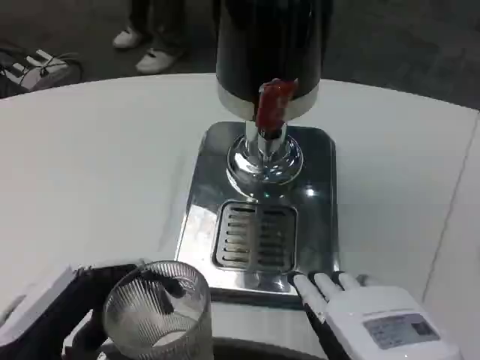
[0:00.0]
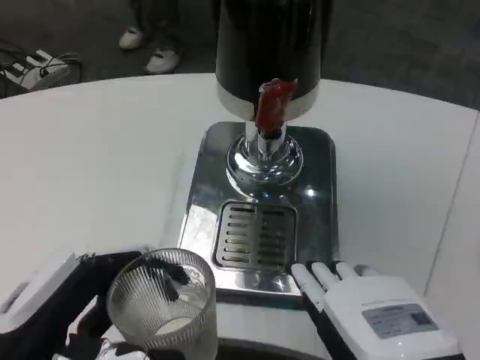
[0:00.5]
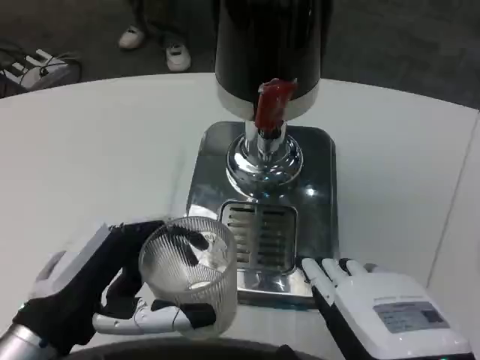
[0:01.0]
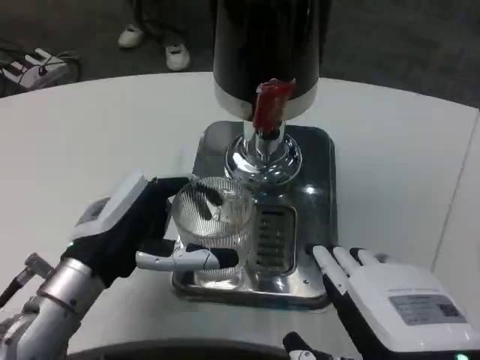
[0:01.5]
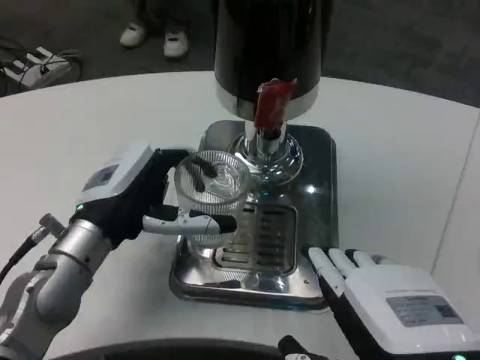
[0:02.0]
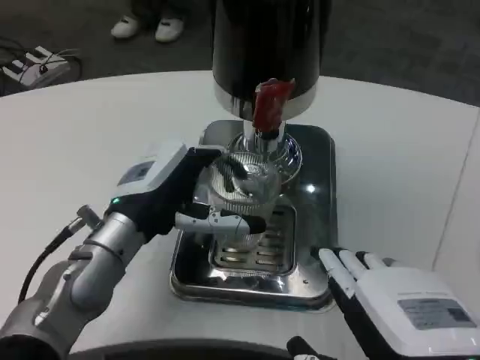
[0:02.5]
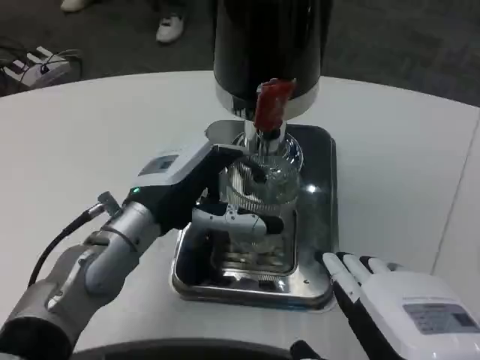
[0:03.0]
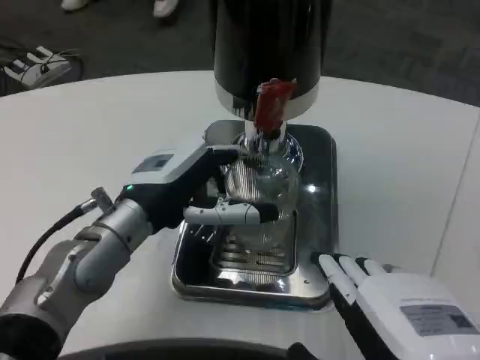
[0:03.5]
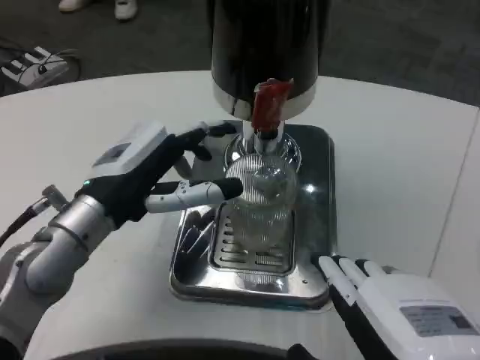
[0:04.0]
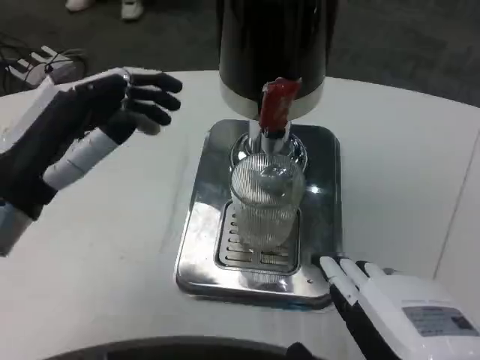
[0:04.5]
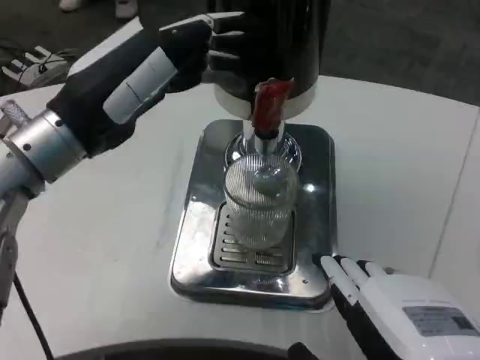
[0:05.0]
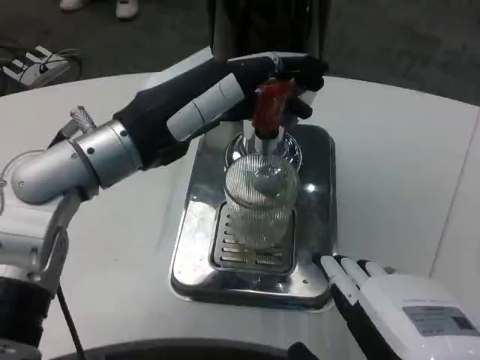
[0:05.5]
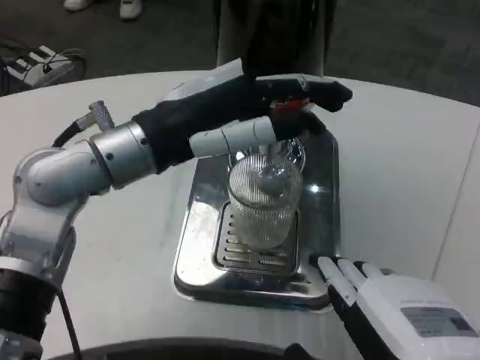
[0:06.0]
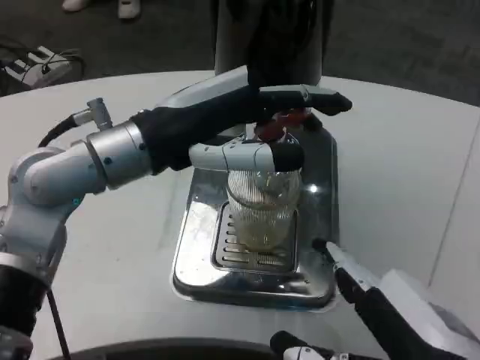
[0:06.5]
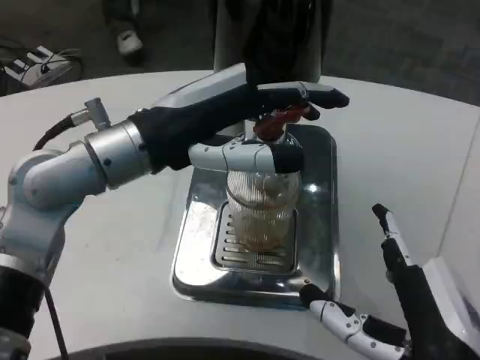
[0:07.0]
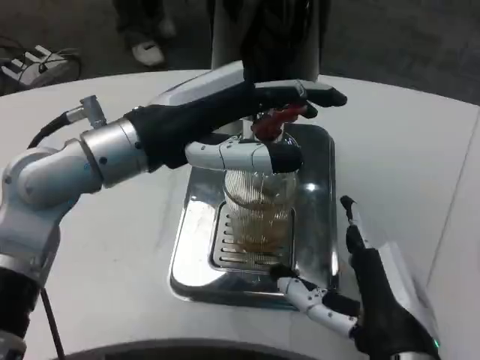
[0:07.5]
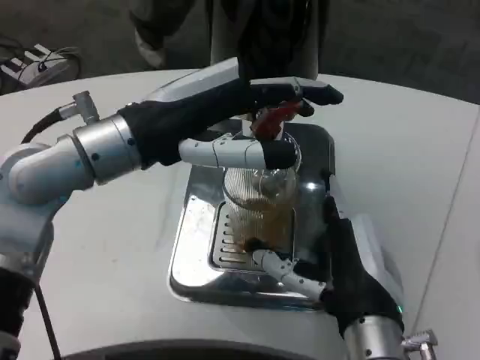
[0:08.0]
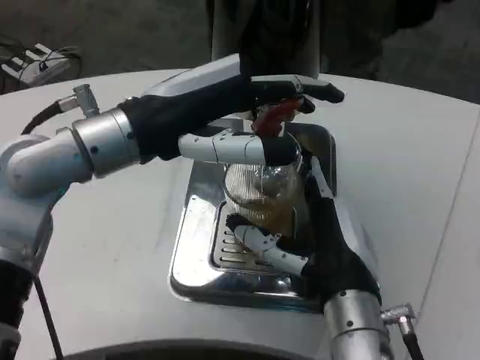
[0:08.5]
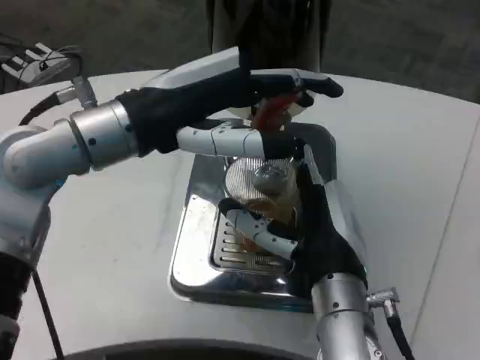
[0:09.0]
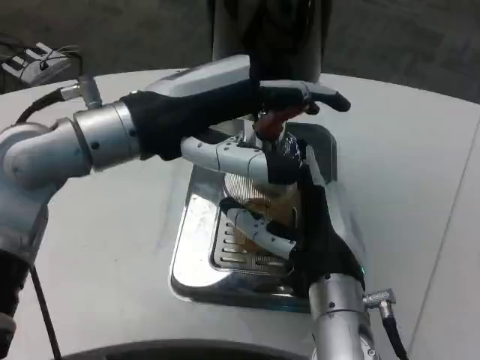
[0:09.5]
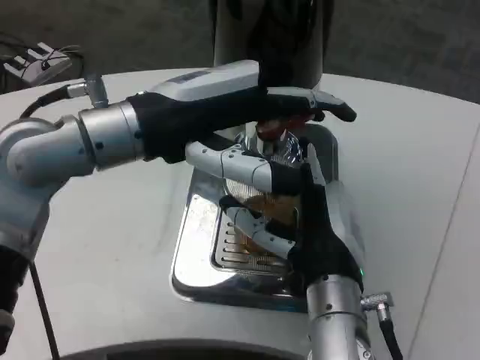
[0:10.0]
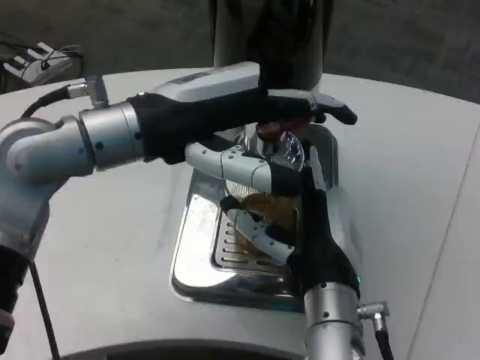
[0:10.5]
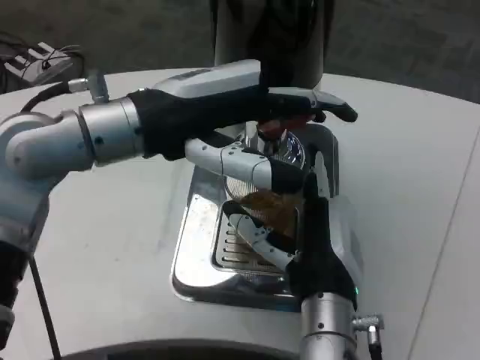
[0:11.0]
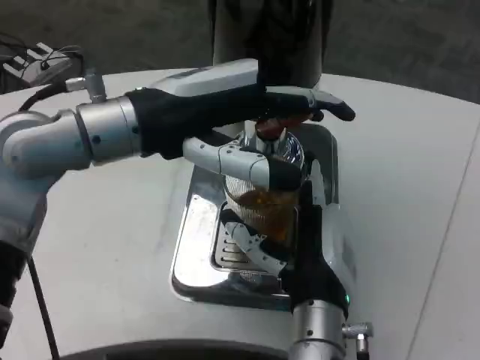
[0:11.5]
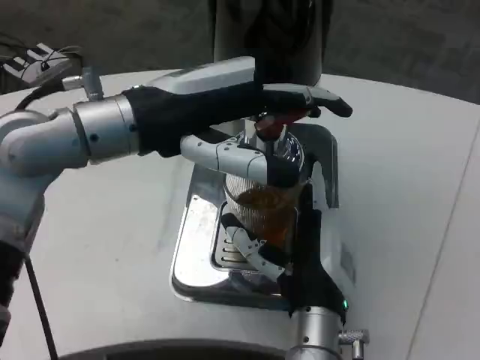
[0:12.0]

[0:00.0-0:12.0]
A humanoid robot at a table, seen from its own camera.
Task of the whole recording: Grasp the cup under the faucet to collect the drink, then remove the cup.
0:00.0 to 0:02.0: The left hand moves forward, about 15 cm.
0:04.0 to 0:06.0: The left hand shifts roughly 10 cm upward.
0:06.0 to 0:08.0: The right hand moves forward, downward and to the left, some 15 cm.
0:10.0 to 0:12.0: The right hand ends up some 5 cm from where it was.

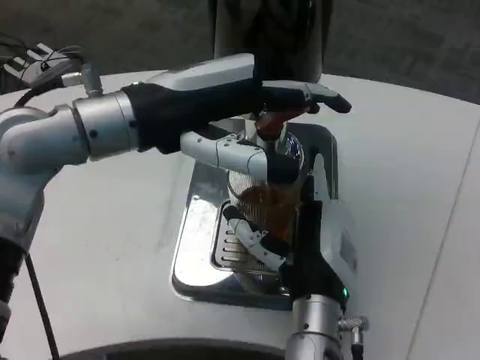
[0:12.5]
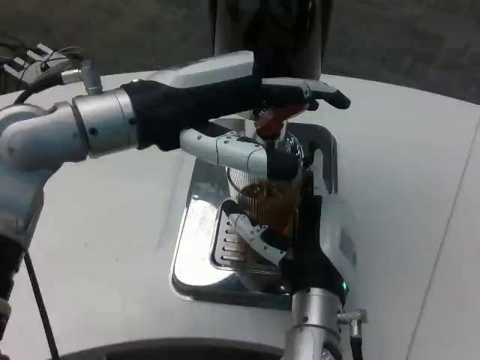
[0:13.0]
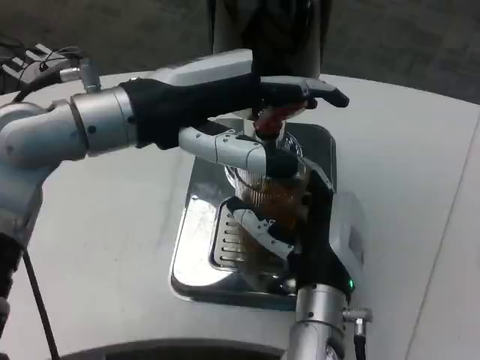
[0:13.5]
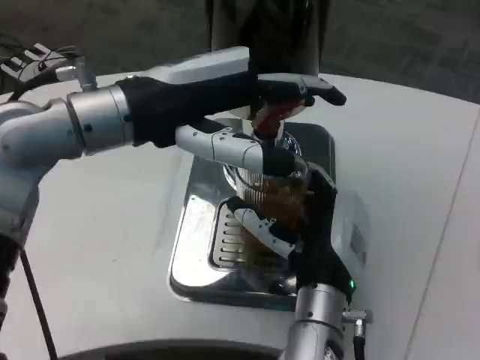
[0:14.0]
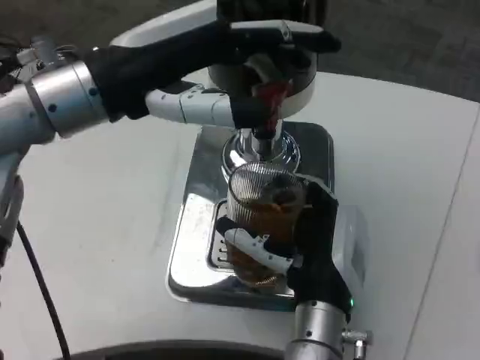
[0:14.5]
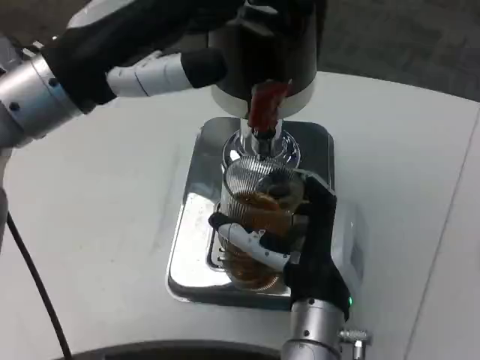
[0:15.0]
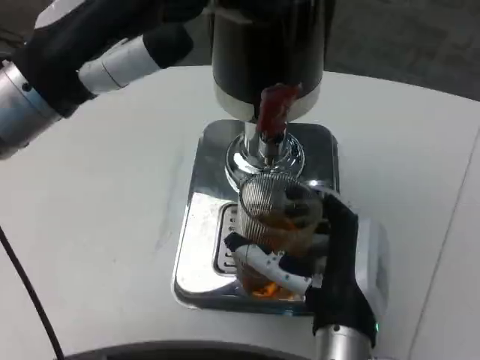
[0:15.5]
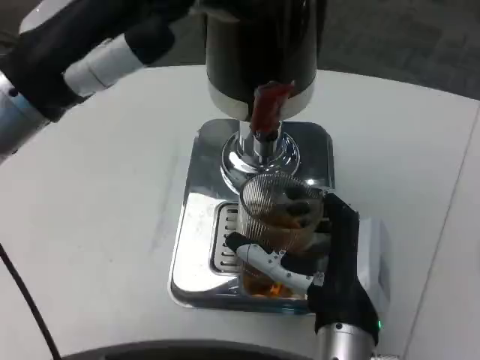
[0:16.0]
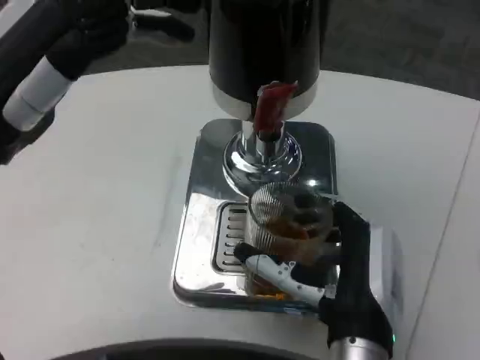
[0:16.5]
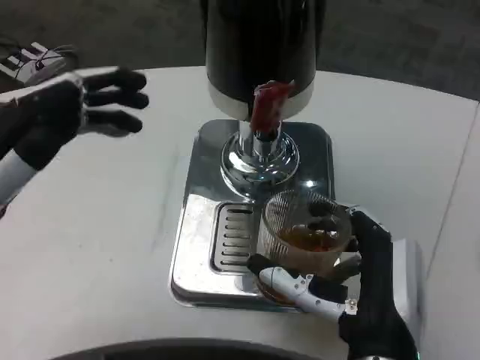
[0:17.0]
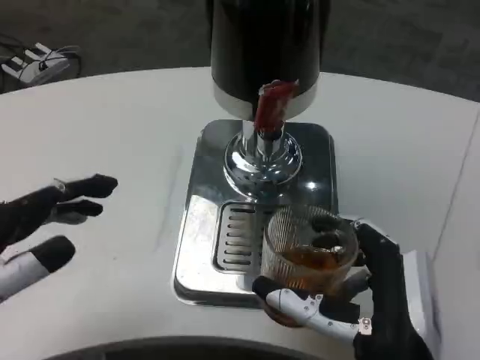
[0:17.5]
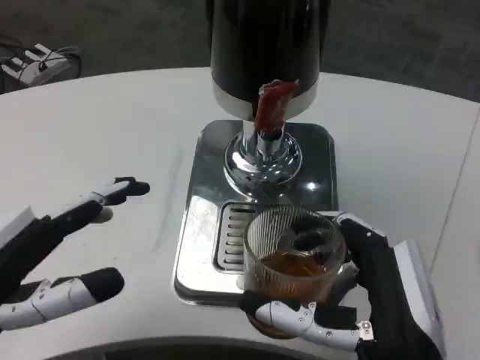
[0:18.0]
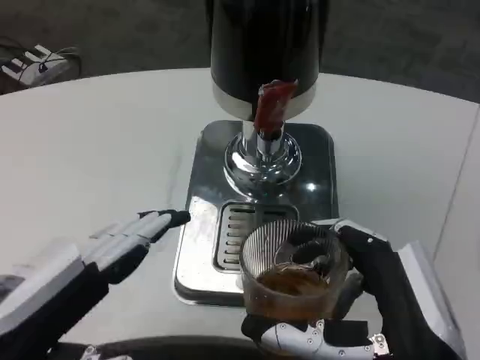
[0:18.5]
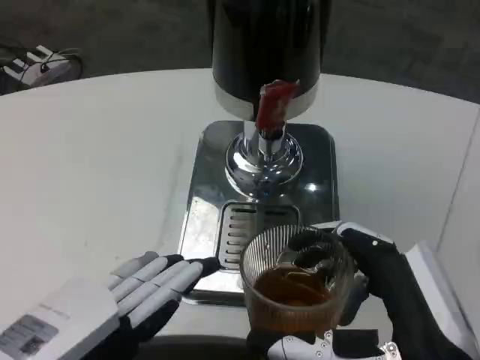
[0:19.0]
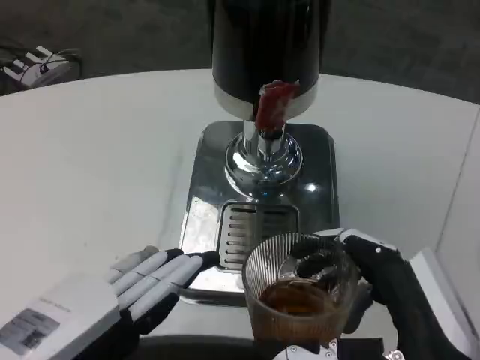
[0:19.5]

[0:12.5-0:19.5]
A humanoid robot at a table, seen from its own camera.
Task of the whole recording: Grasp the cup under the faucet to collect the drink, then remove the cup.
0:16.0 to 0:17.5: The left hand travels downward, backward and to the left by approximately 20 cm. Meanwhile the right hand shifts approximately 5 cm backward.
0:17.5 to 0:19.5: The left hand heads to the right and backward, covering approximately 10 cm. The right hand shifts by approximately 10 cm.

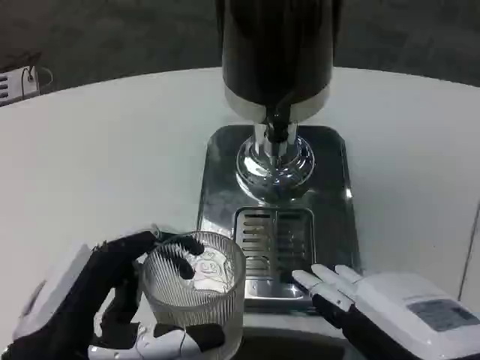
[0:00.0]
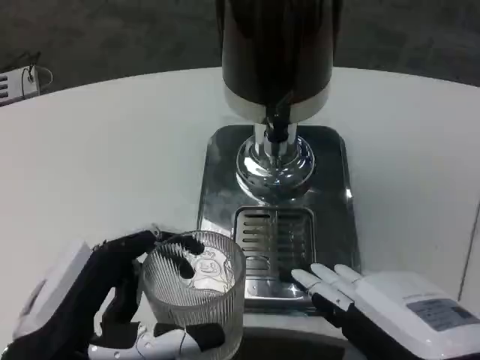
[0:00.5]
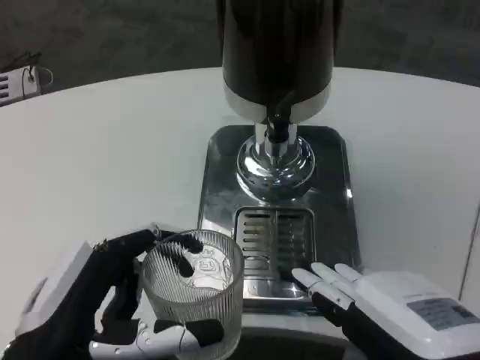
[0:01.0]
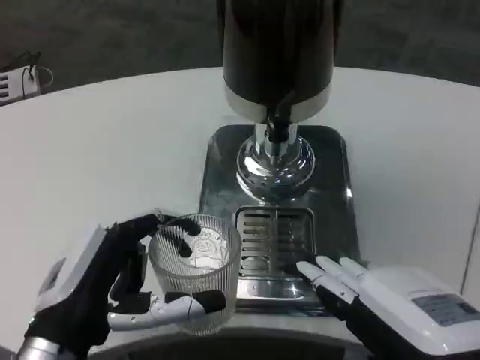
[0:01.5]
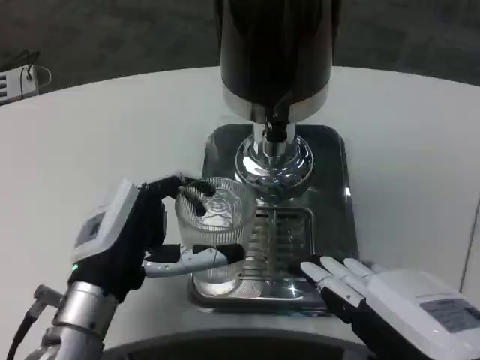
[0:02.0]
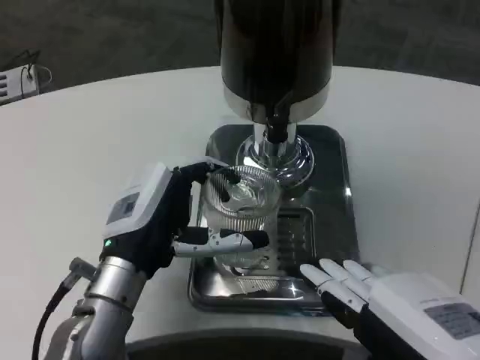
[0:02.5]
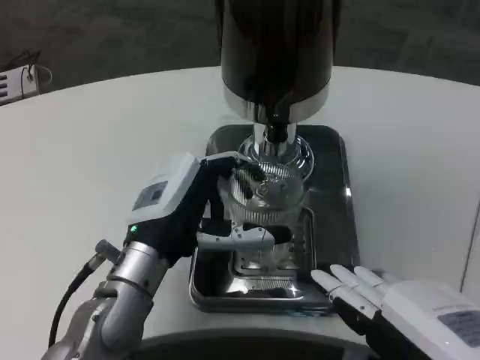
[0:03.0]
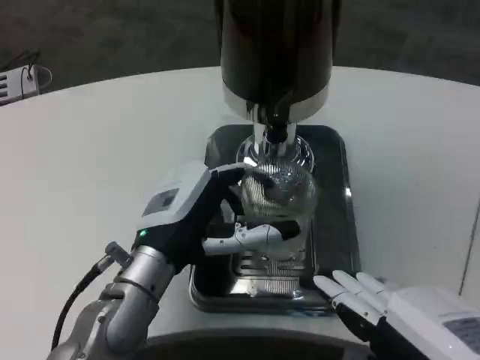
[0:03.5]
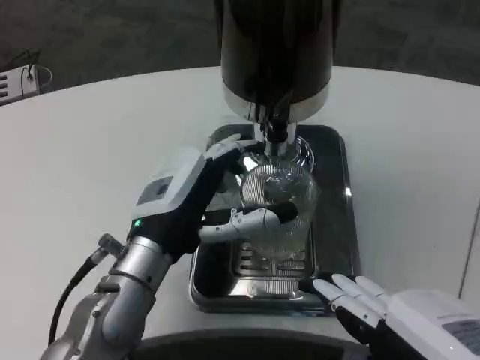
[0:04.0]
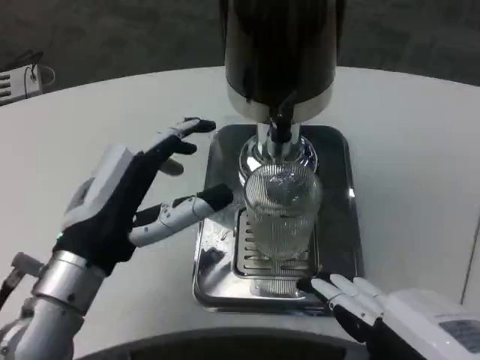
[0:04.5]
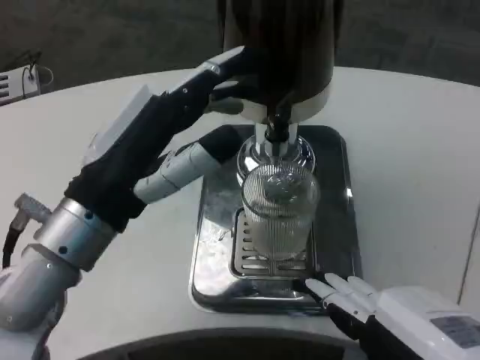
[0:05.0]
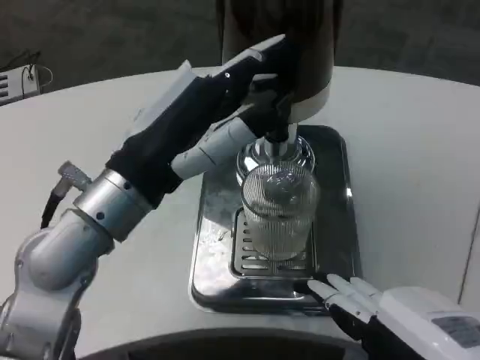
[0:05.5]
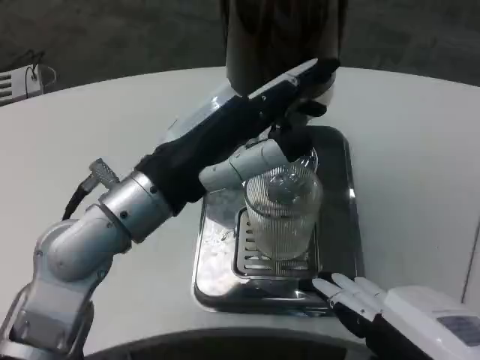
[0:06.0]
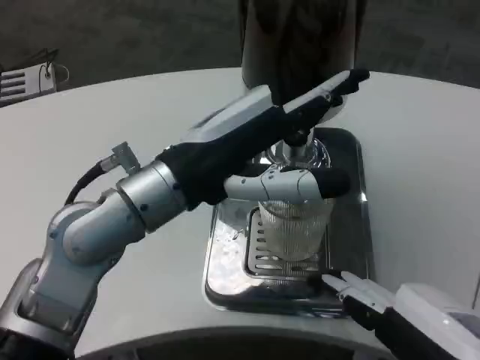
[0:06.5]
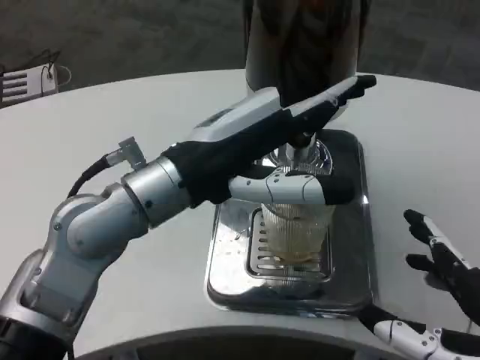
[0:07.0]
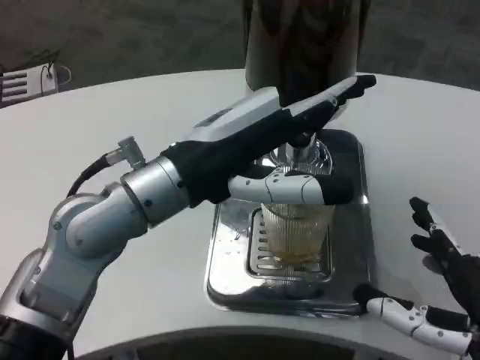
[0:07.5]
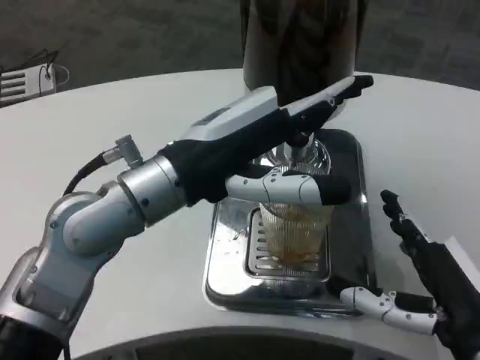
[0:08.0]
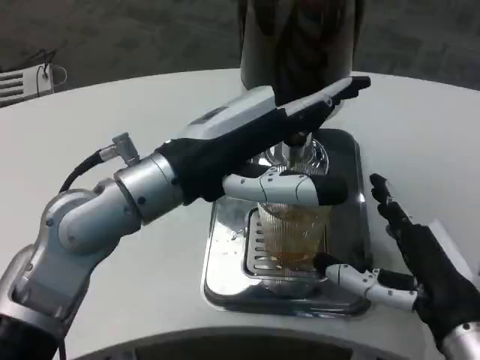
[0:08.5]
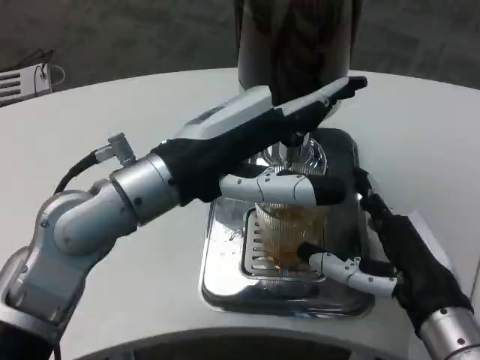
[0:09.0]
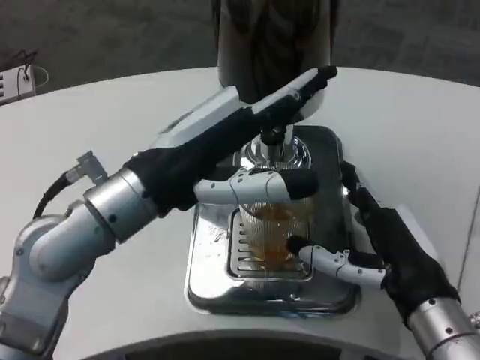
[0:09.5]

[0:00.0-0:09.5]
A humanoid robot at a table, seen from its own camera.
Task of the whole recording: Grasp the cup under the faucet to collect the drink, then remove the cup.
0:00.0 to 0:02.0: The left hand is displaced forward by roughly 10 cm.
0:02.0 to 0:04.0: The left hand moves about 5 cm.
0:04.0 to 0:05.5: The left hand moves upward, roughly 10 cm.
0:05.5 to 0:07.5: The right hand heads forward and downward, covering approximately 10 cm.
0:07.5 to 0:09.5: The right hand is displaced forward by roughly 10 cm.
